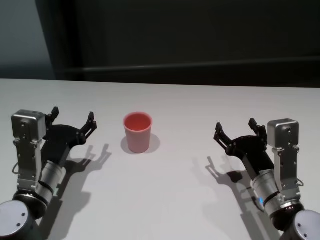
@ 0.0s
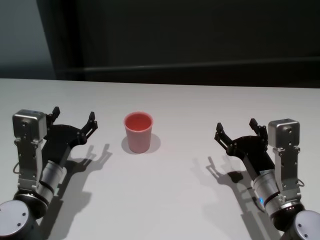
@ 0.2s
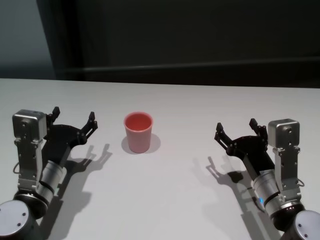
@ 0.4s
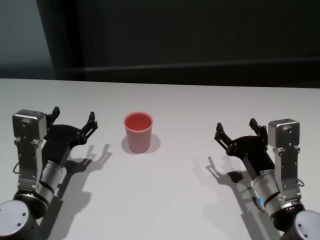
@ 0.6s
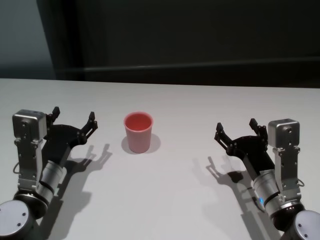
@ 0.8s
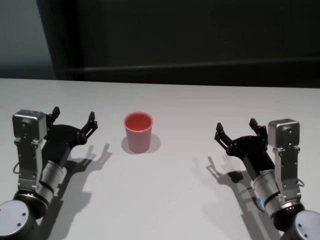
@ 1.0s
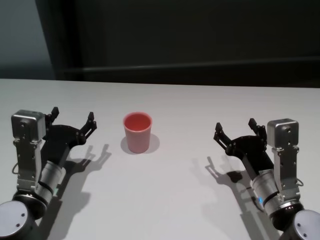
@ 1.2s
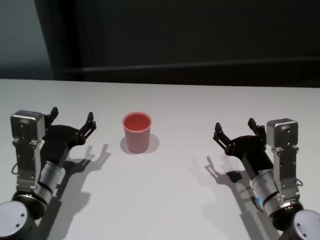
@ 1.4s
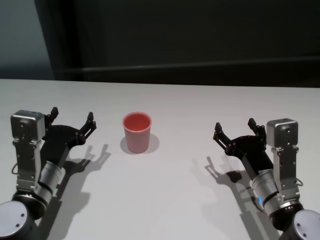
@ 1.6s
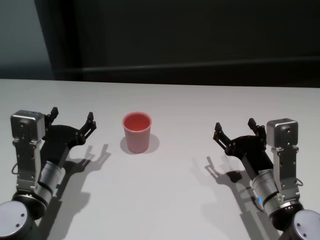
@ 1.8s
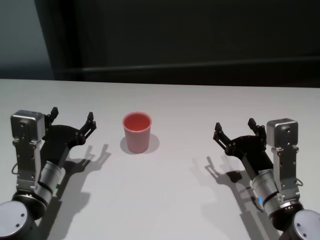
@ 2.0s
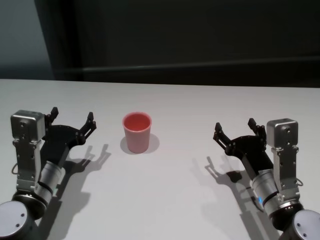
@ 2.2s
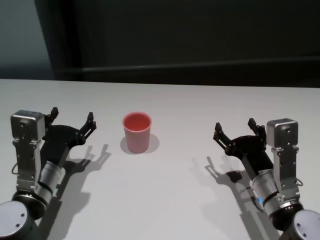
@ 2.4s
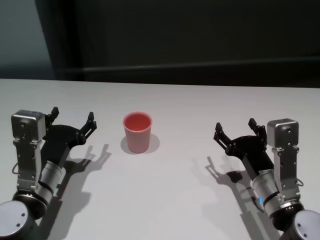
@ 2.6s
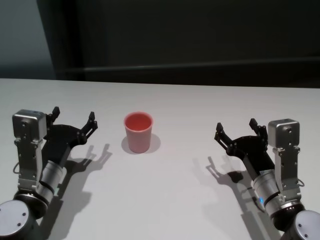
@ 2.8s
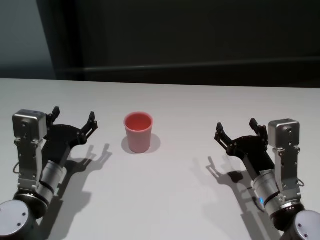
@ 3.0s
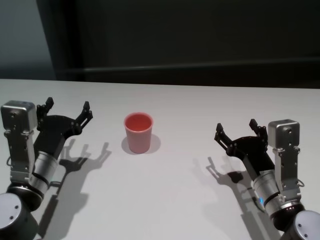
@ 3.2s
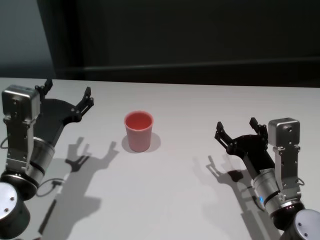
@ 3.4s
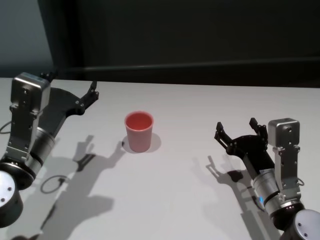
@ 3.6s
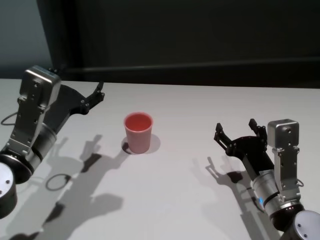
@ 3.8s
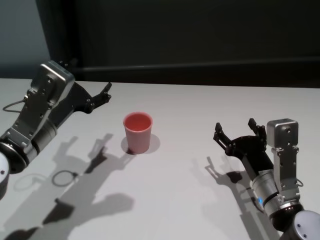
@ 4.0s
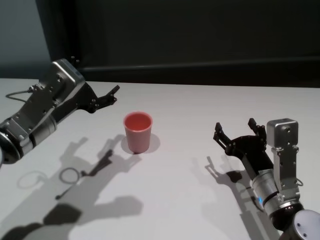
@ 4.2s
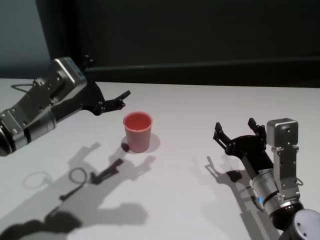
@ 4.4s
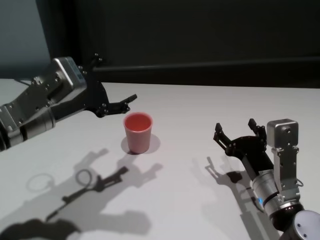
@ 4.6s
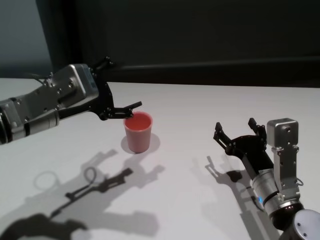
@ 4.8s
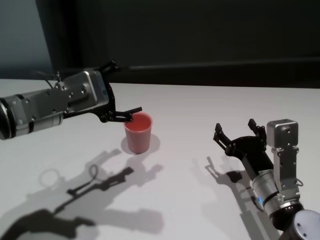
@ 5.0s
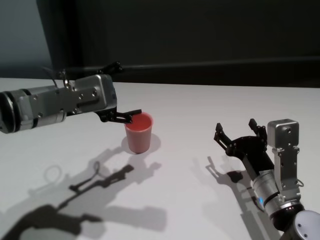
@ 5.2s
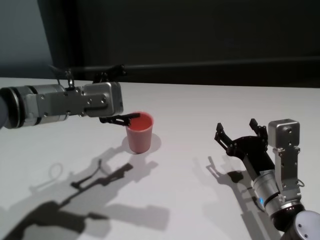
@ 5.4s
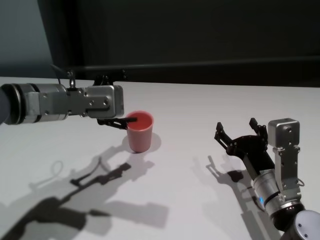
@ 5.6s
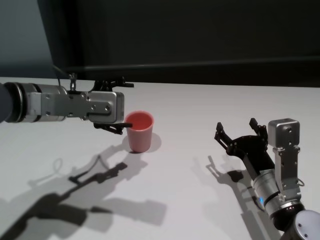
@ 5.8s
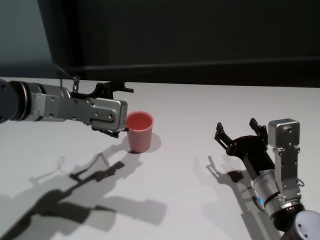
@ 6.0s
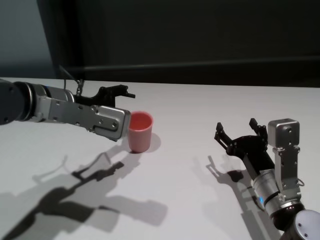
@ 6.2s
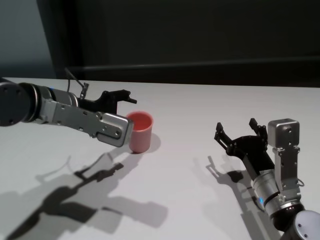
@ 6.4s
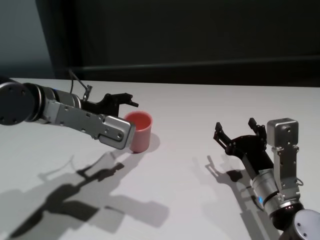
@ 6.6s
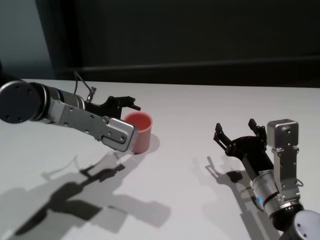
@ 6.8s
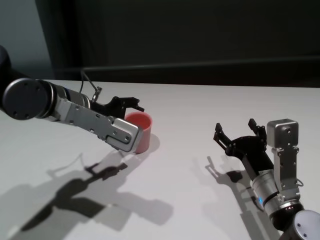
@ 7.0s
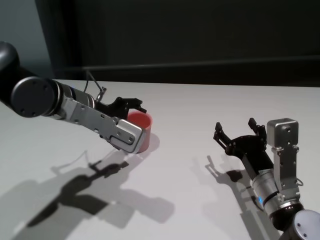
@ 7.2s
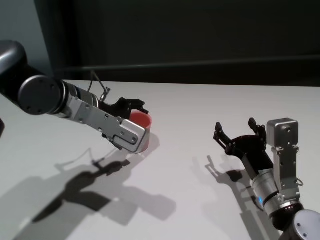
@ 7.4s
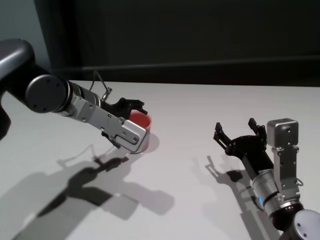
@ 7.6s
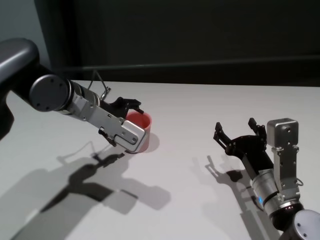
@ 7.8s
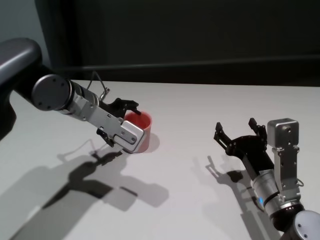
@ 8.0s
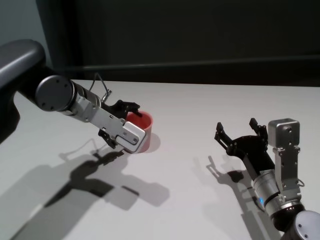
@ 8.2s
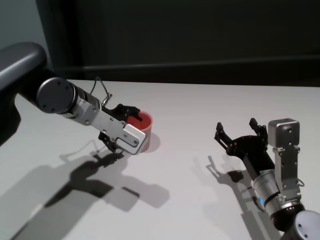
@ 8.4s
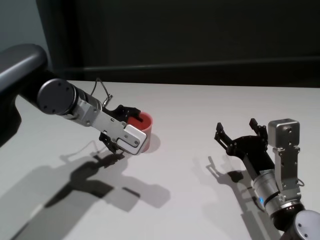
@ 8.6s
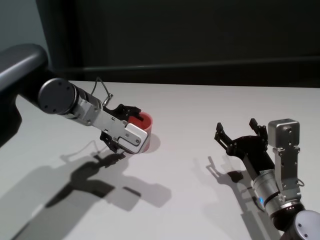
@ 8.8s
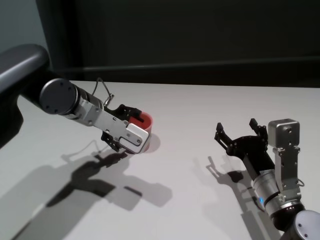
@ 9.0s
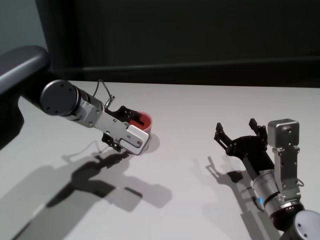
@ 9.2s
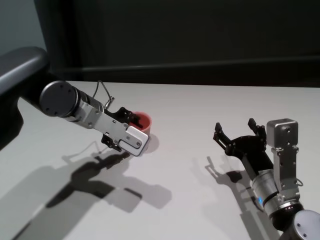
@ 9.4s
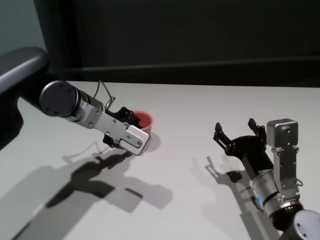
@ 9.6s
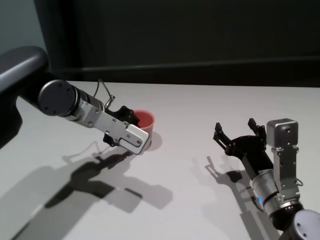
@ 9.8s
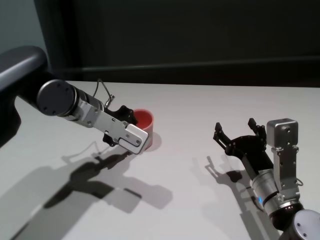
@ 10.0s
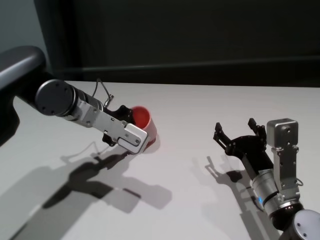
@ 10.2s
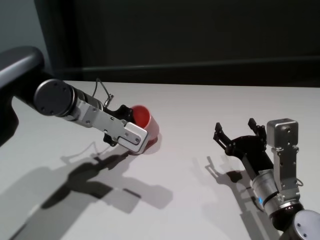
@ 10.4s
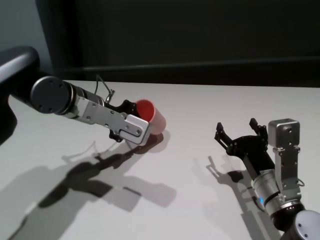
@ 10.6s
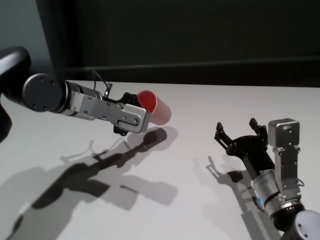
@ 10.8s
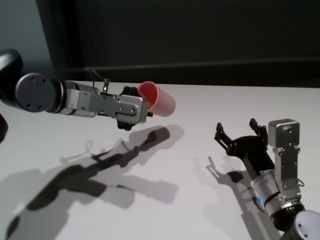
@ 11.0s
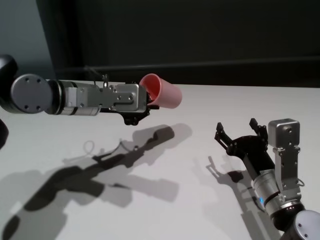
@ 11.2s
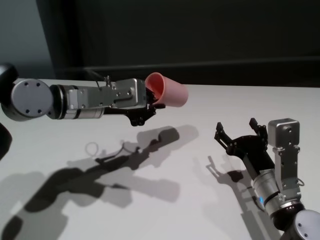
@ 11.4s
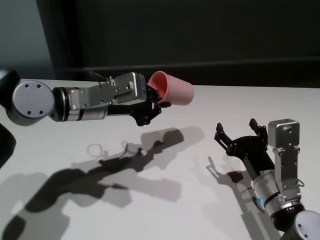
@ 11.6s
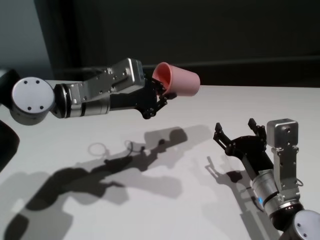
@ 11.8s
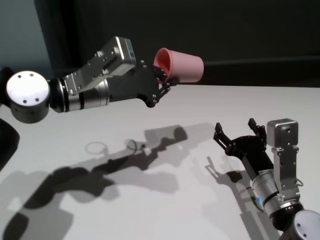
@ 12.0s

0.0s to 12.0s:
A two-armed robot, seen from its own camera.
Task of the whole recording: On the white table pick up the cup with one hand and transfer it to the other hand before turning it over.
Step, 0.0s to 9.8s: Grasp the cup with left gripper.

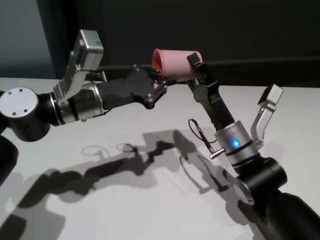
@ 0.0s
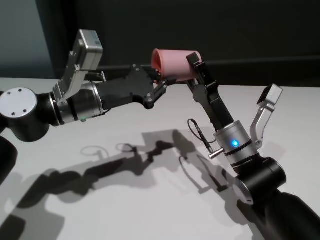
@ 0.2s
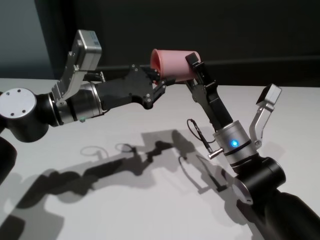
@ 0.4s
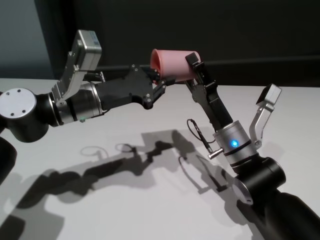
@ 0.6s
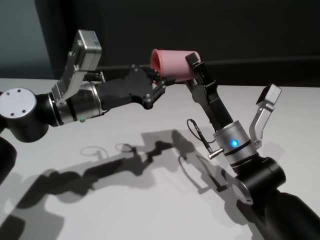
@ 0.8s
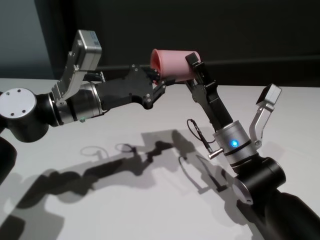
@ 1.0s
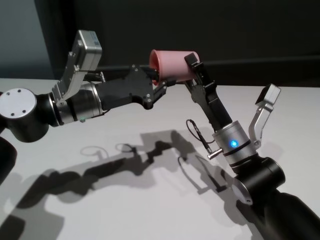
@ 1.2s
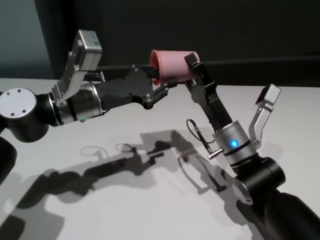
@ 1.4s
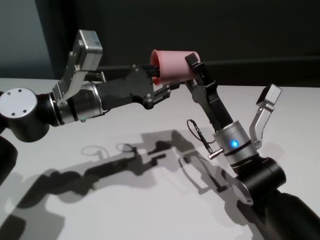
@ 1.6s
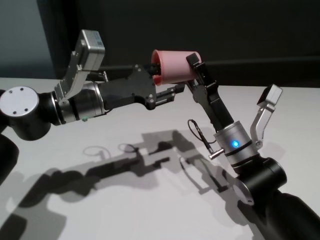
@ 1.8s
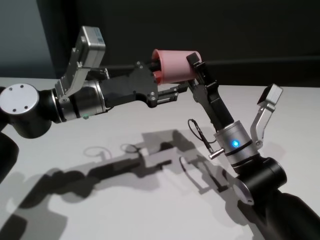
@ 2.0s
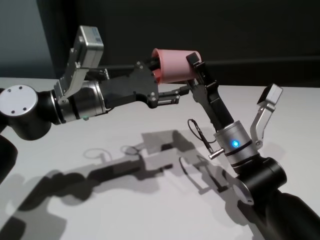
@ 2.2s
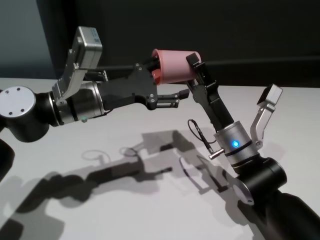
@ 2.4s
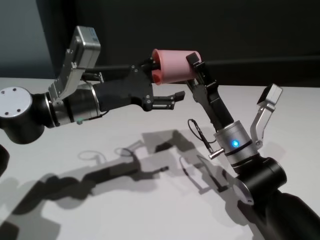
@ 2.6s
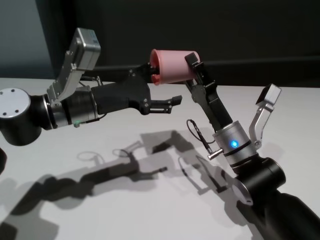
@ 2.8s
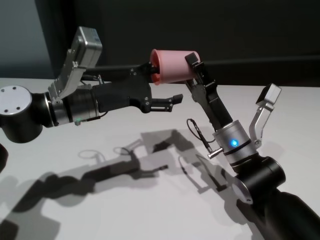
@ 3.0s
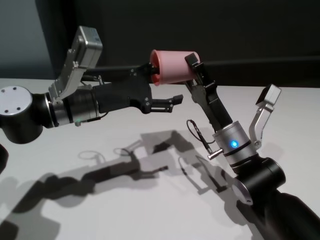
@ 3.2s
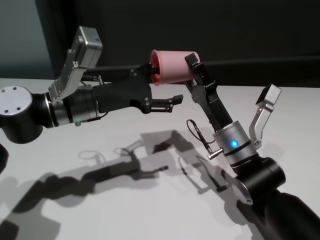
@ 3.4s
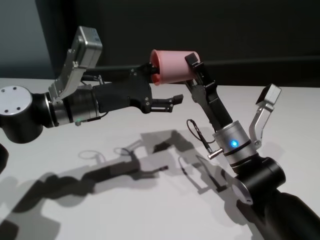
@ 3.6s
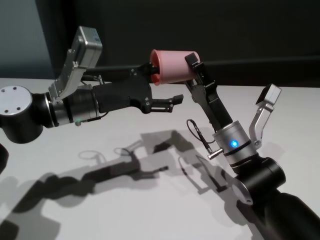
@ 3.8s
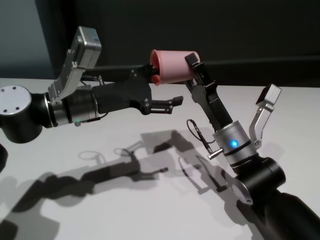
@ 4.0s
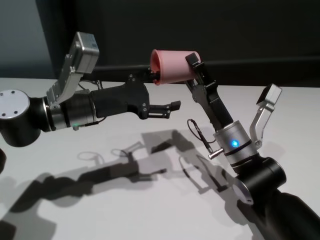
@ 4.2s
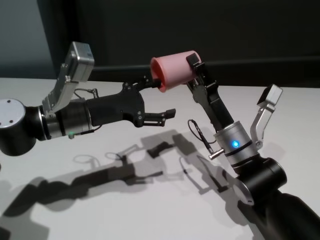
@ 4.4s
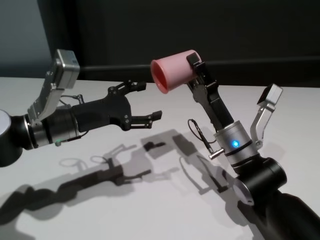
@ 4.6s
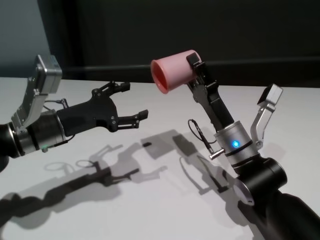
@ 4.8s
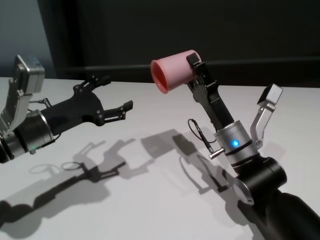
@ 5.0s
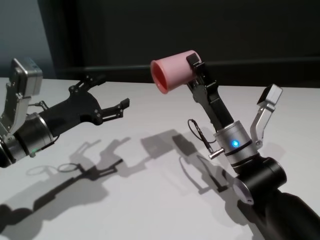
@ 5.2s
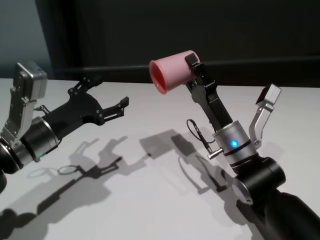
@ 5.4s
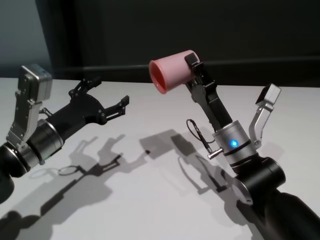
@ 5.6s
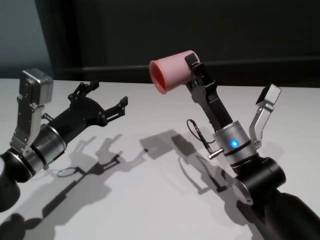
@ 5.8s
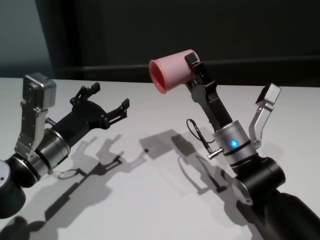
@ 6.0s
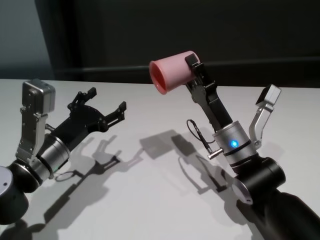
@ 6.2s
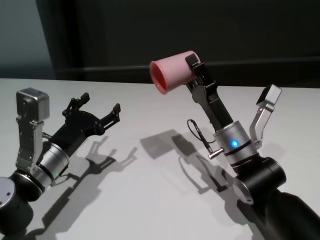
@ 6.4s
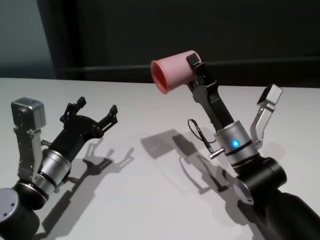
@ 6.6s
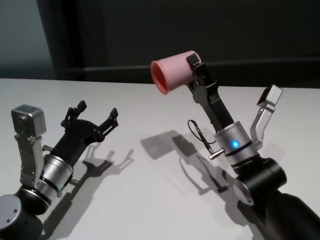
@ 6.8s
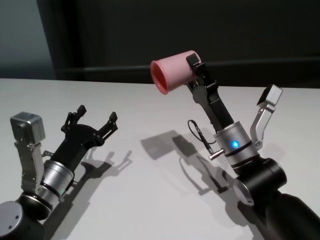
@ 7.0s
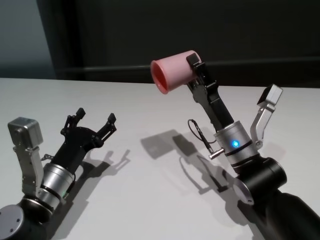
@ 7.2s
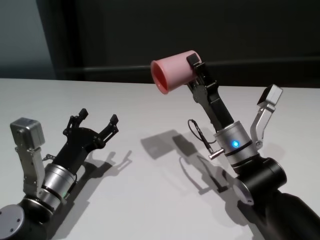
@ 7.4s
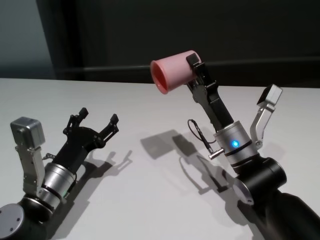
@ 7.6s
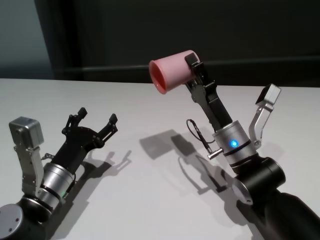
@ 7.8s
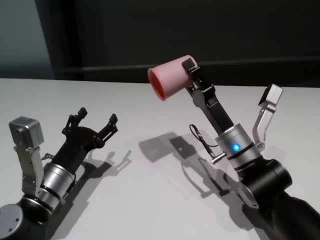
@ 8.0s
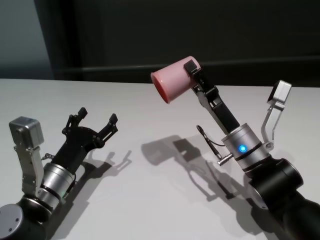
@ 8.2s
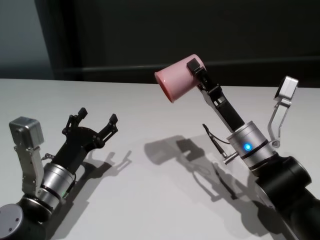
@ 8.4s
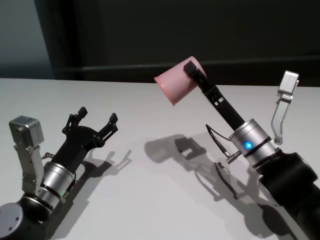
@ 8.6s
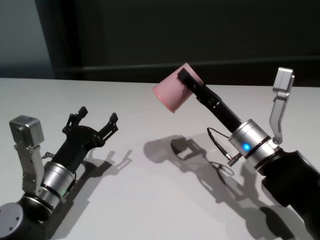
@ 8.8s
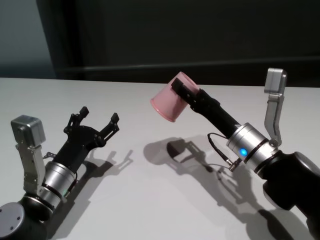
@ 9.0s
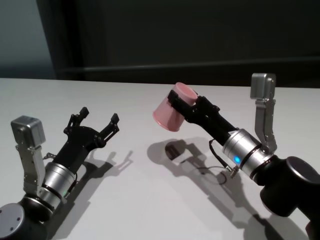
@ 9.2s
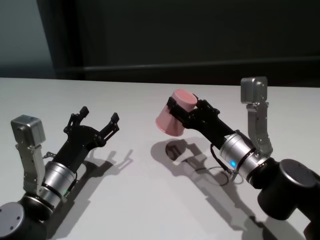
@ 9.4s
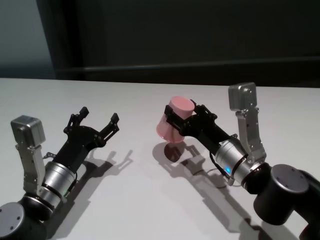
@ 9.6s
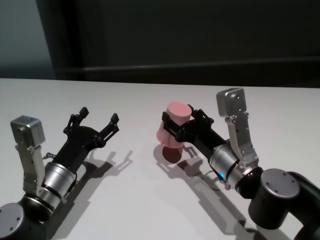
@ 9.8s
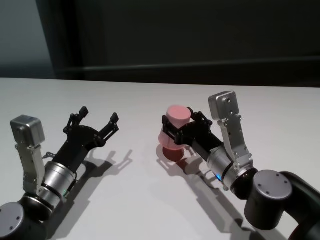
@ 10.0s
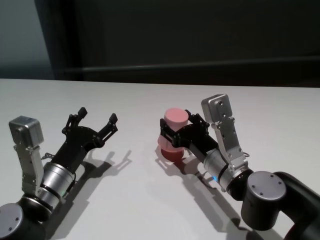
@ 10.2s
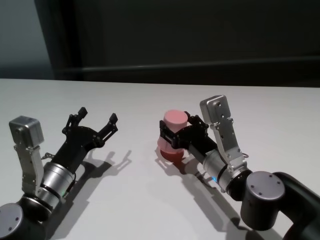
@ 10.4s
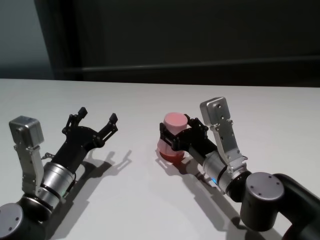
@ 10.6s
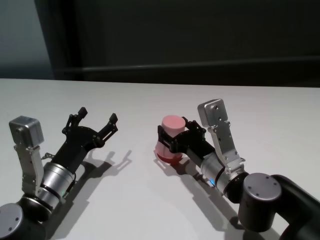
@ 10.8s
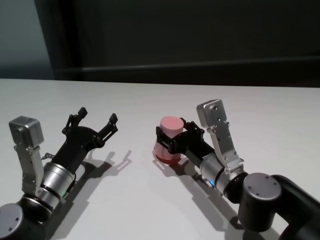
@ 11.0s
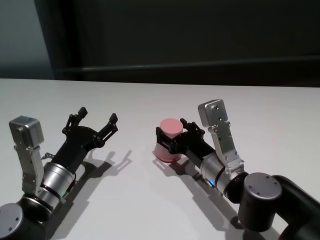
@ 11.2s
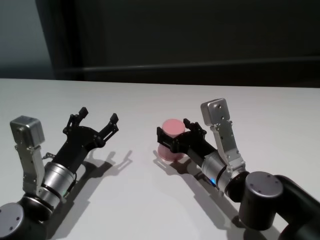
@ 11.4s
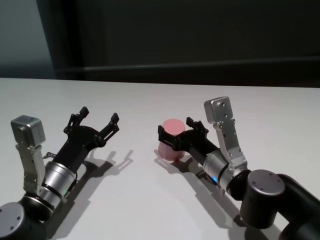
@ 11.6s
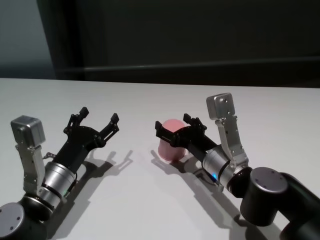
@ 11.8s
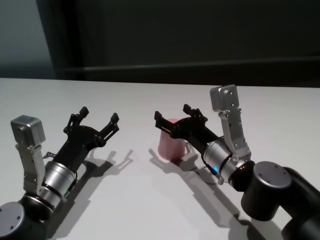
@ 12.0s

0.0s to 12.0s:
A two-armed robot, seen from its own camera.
Task of the whole recording: On the white table pick up the cup with one hand and transfer it to the other hand before turning it over.
Step, 0.0s to 4.6s: Pass the cup to the right gripper.
